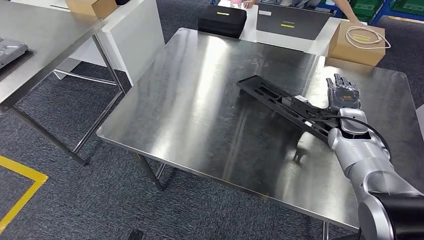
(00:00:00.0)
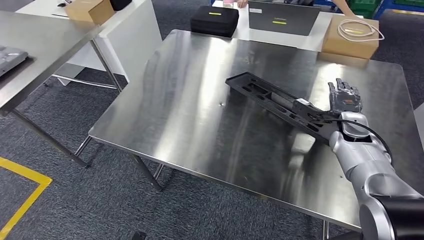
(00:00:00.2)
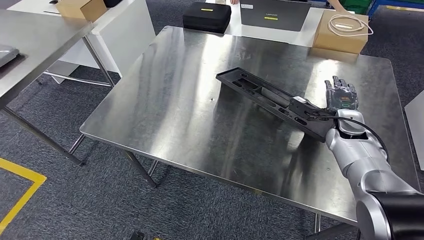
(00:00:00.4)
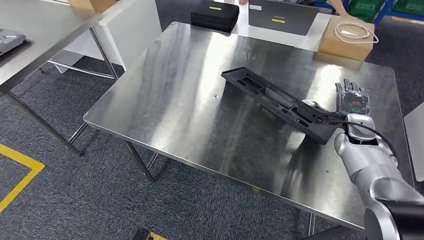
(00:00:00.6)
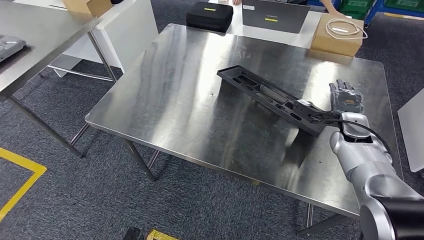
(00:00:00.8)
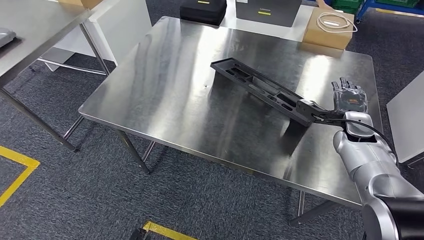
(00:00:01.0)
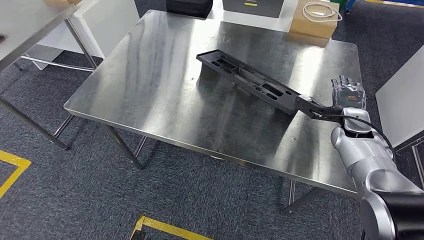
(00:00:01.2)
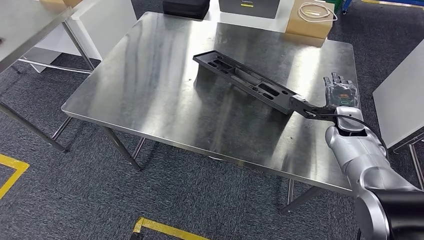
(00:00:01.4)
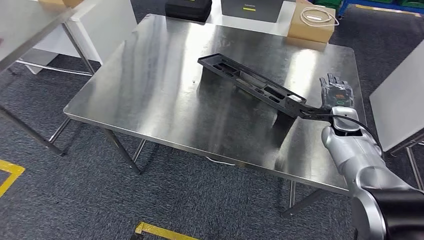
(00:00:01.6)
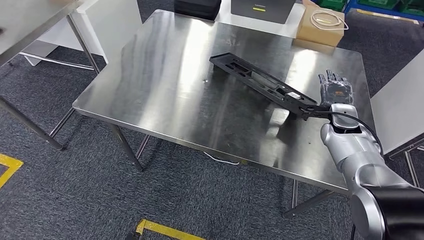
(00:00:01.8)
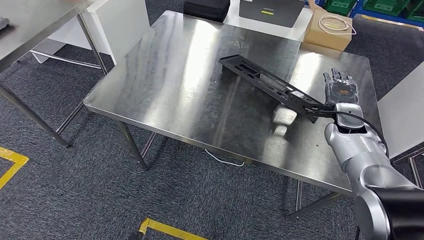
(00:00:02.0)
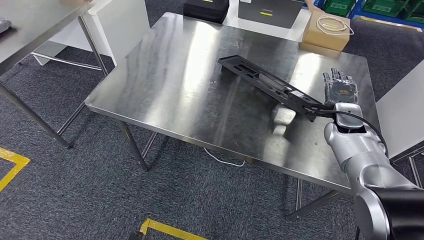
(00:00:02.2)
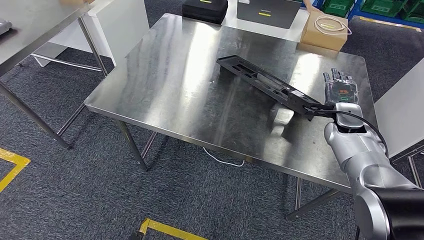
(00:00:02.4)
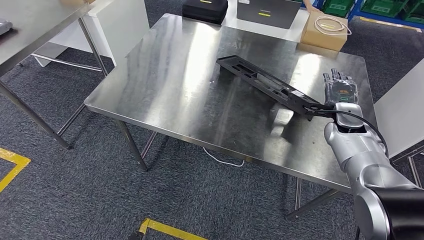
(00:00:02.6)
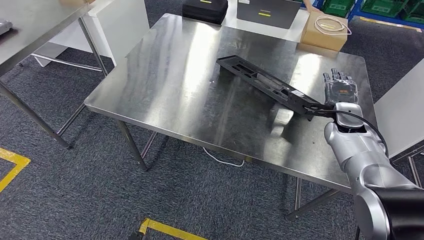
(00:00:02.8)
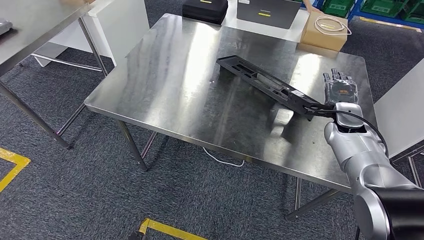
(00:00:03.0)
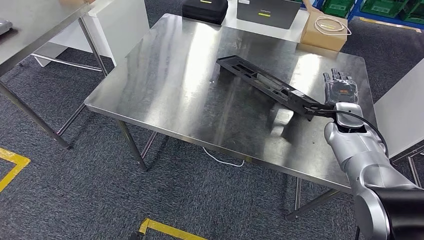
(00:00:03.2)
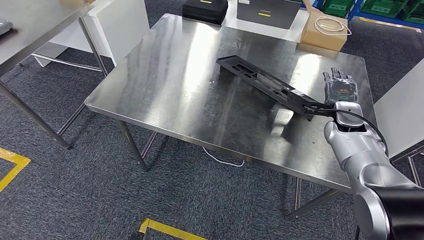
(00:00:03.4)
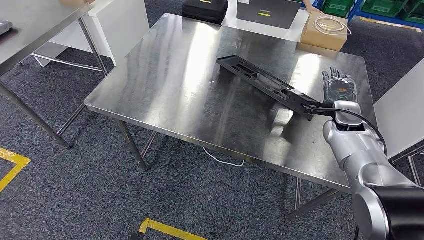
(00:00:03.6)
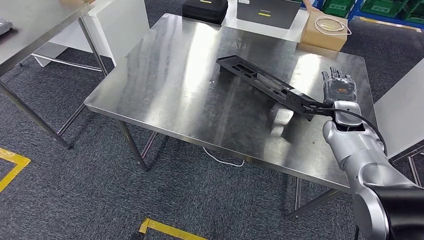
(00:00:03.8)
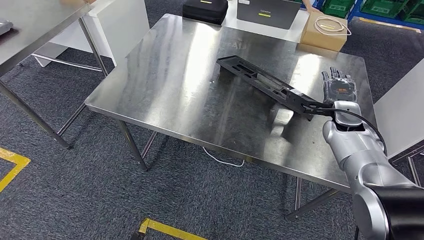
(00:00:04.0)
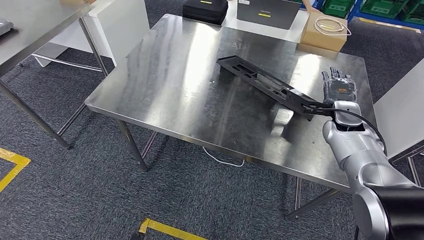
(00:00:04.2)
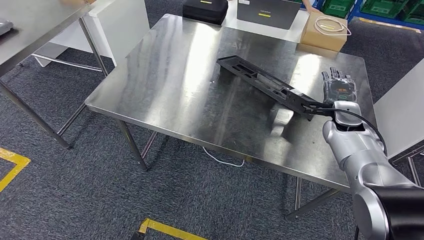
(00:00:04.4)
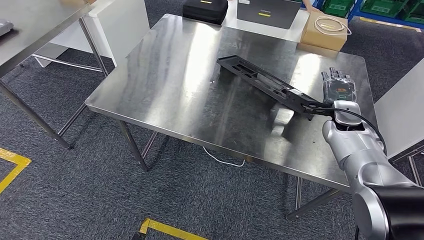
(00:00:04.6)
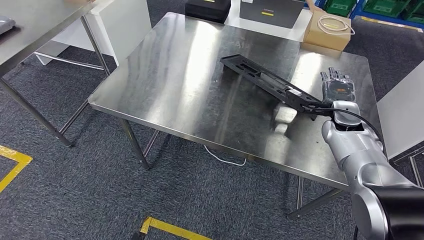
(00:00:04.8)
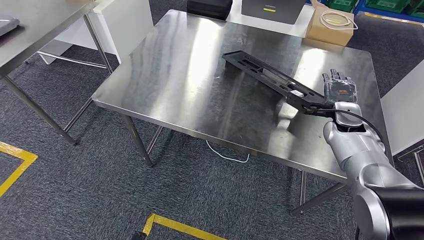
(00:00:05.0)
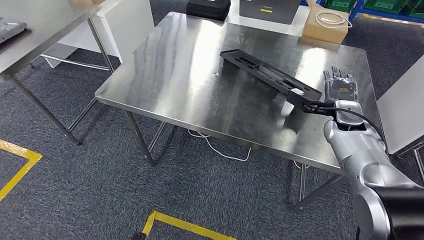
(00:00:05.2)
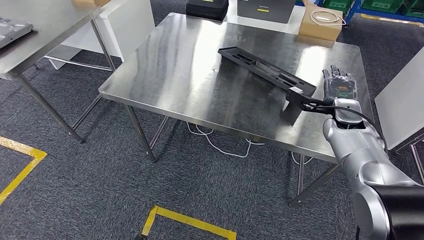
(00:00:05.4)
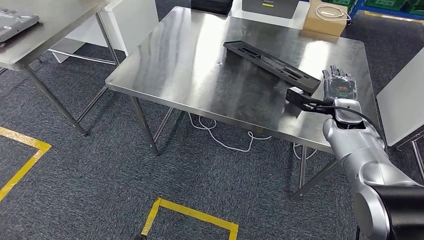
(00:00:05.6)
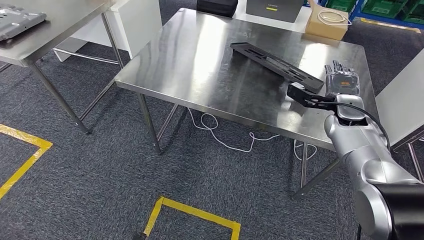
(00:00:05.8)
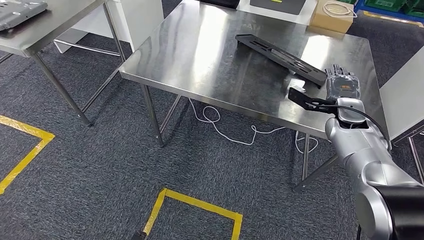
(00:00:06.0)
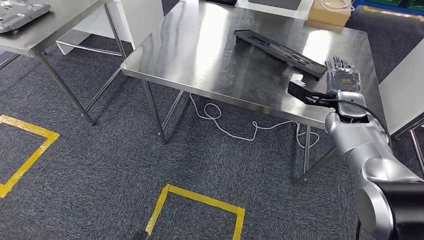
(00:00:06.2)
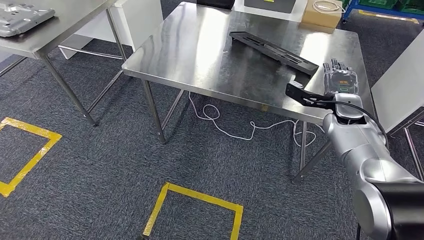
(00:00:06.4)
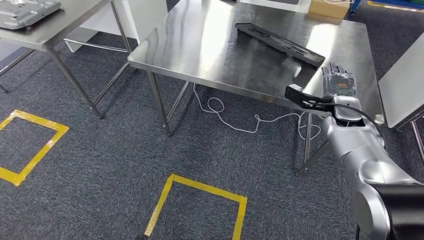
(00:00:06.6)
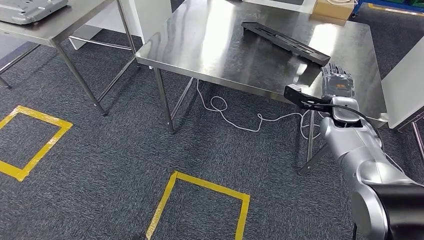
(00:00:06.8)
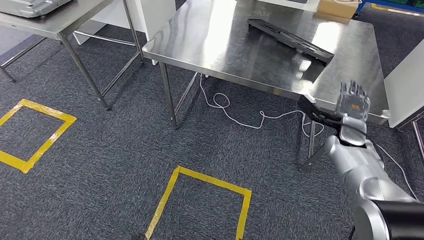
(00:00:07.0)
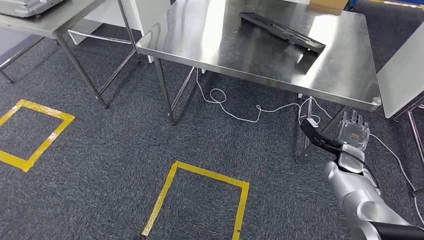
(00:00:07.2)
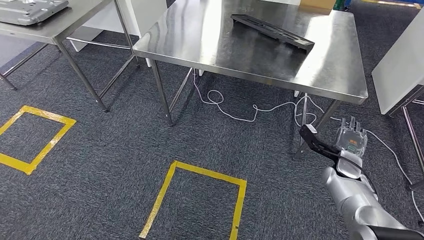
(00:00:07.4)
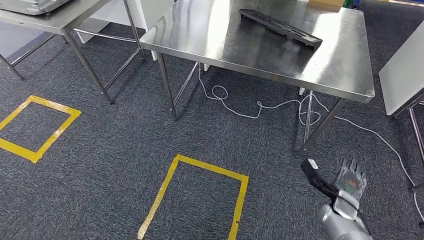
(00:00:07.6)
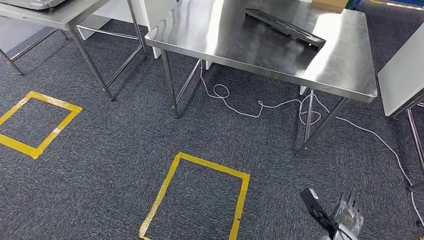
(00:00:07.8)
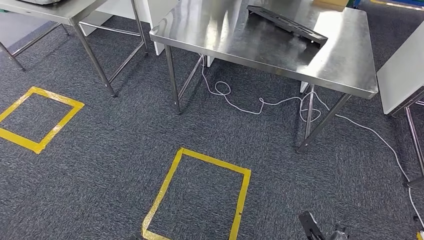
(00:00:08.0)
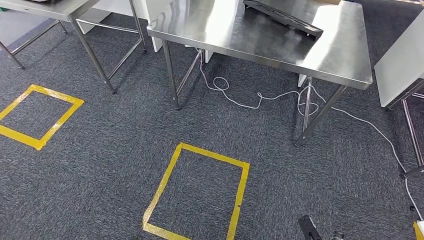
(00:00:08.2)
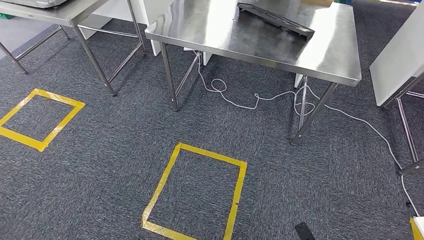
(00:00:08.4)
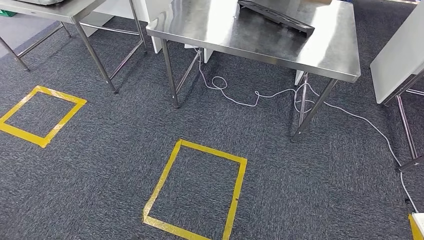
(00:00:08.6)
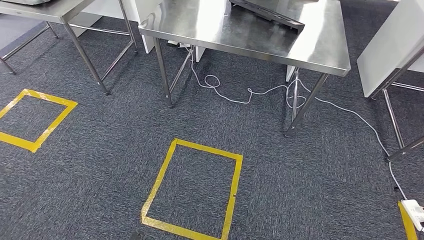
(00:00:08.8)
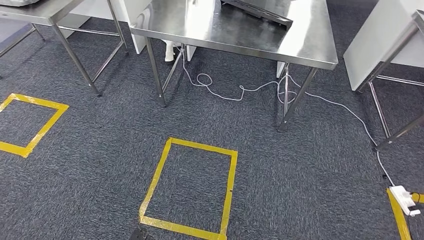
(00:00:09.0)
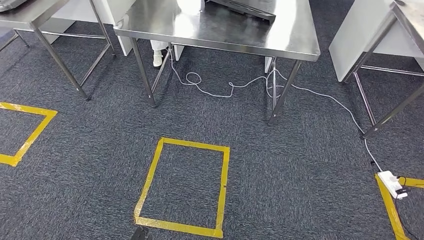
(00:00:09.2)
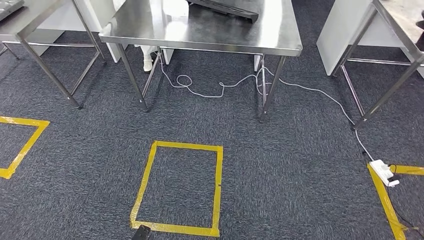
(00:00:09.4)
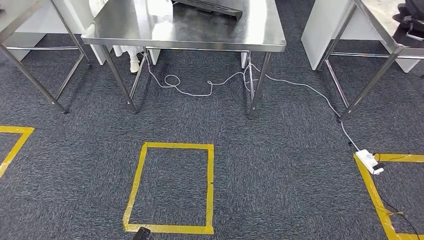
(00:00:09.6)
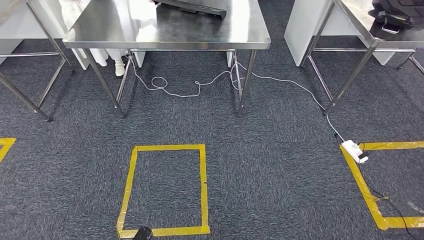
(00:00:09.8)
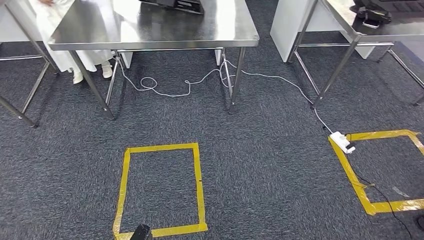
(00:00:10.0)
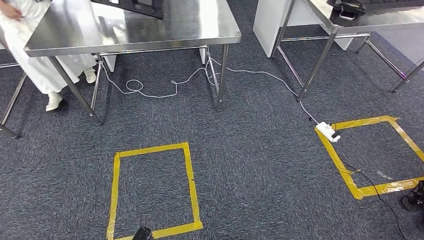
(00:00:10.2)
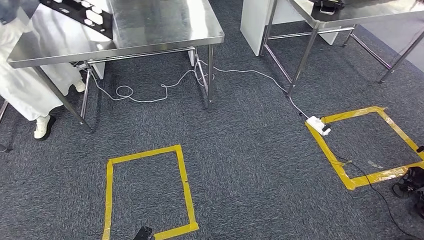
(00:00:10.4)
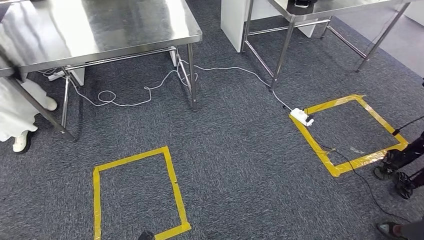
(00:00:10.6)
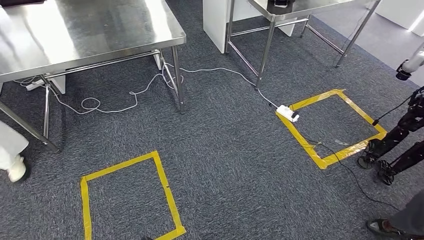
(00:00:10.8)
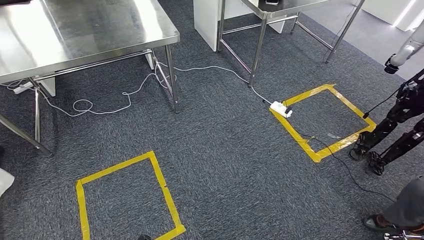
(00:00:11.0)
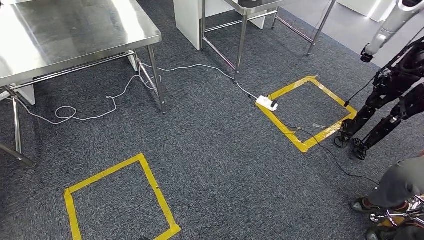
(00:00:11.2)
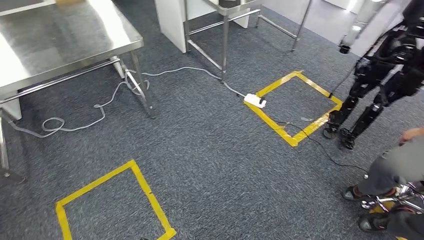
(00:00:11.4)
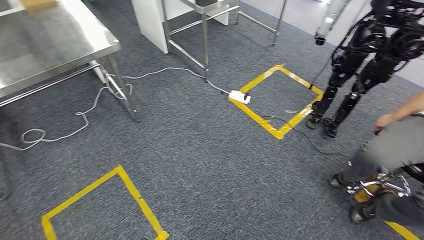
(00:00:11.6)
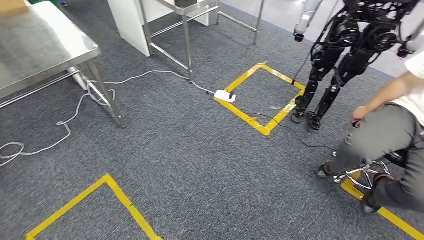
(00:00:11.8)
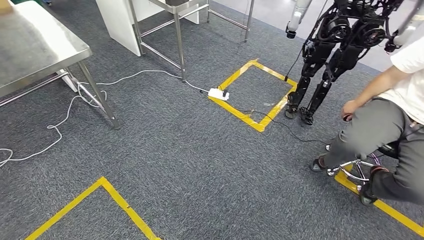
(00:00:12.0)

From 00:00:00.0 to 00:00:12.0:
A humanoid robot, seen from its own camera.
Step, from 00:00:00.0 to 00:00:02.0: Insert the large material into the corresponding slot on the workbench.
From 00:00:03.0 to 00:00:04.4: Neither hand changes place.

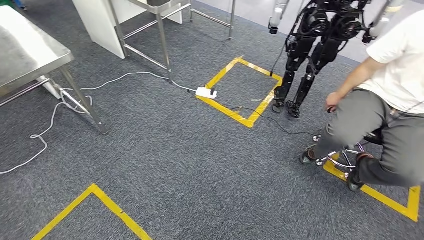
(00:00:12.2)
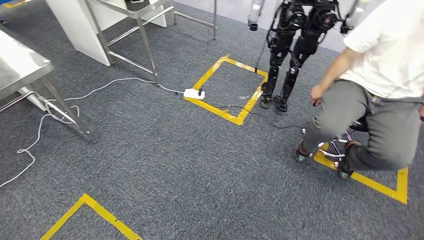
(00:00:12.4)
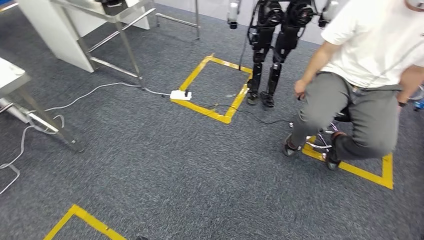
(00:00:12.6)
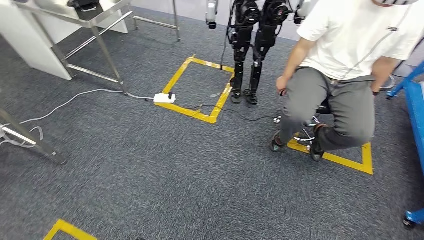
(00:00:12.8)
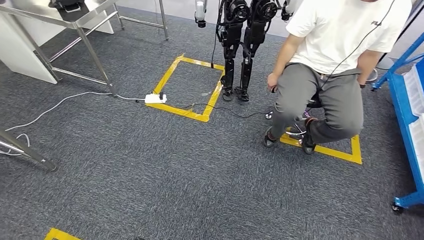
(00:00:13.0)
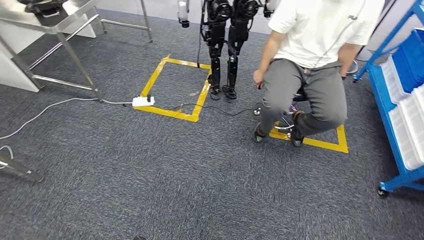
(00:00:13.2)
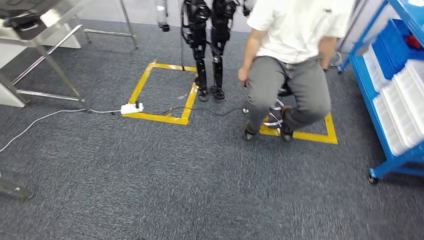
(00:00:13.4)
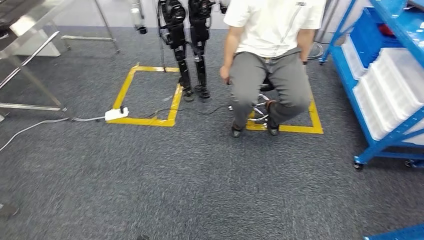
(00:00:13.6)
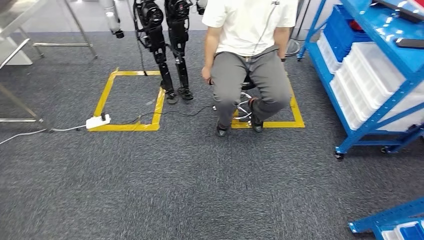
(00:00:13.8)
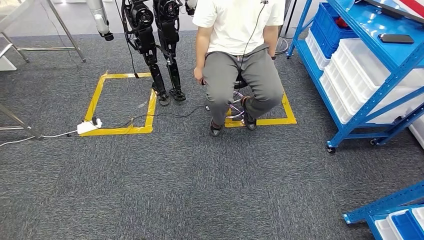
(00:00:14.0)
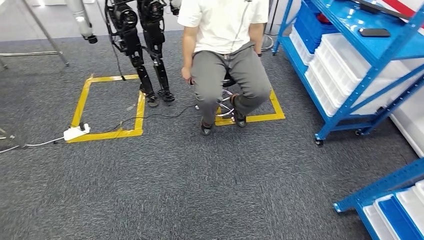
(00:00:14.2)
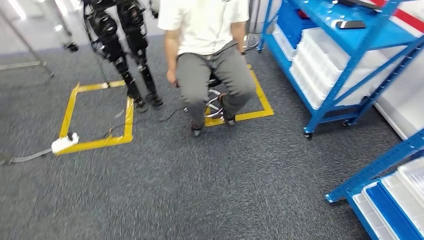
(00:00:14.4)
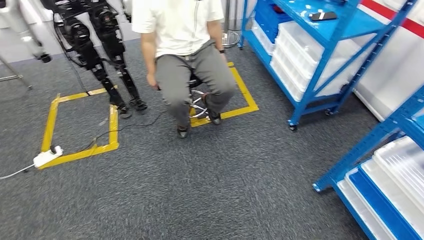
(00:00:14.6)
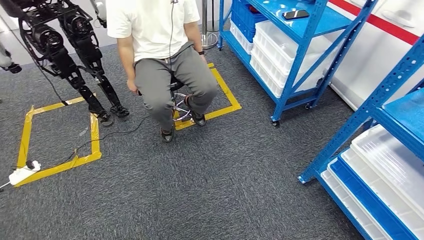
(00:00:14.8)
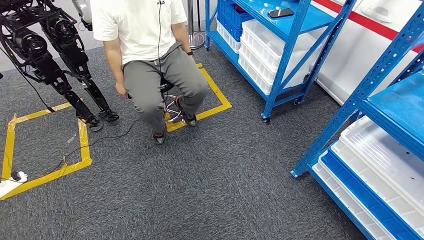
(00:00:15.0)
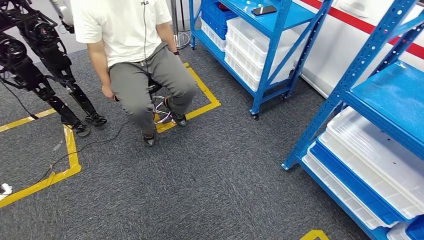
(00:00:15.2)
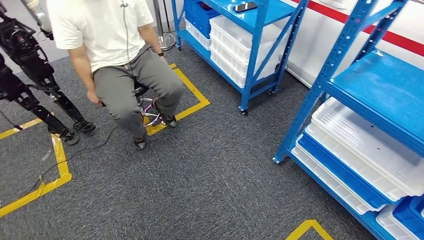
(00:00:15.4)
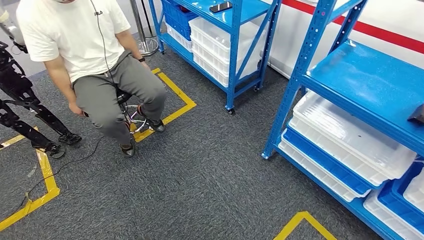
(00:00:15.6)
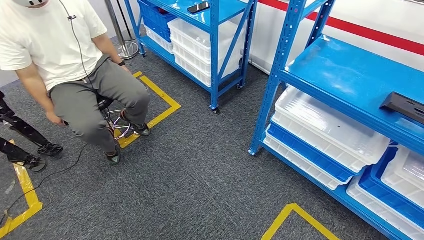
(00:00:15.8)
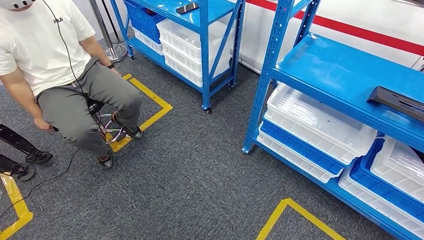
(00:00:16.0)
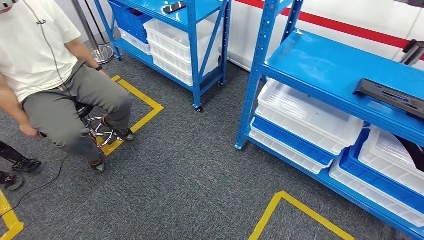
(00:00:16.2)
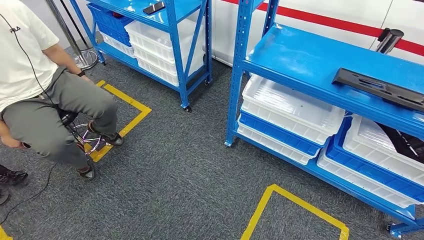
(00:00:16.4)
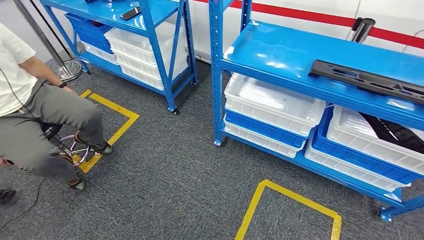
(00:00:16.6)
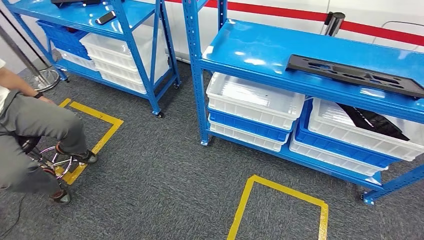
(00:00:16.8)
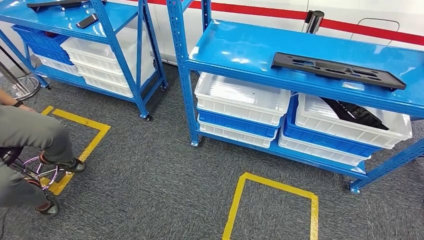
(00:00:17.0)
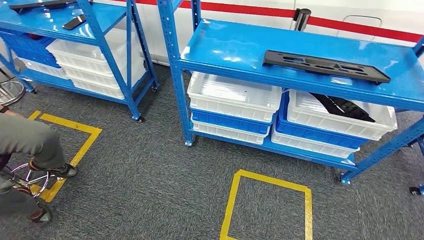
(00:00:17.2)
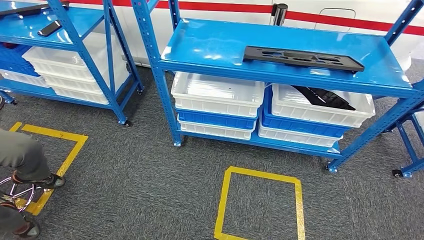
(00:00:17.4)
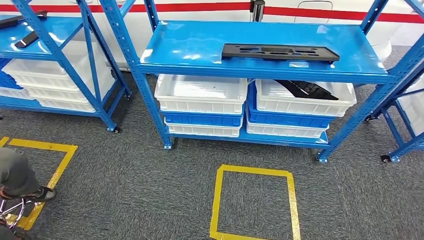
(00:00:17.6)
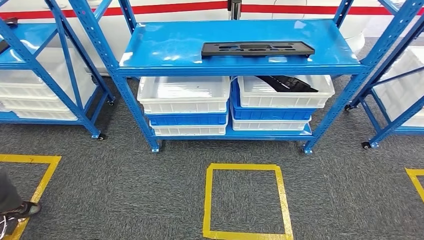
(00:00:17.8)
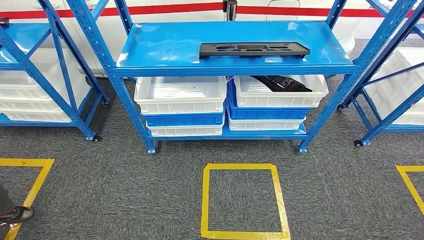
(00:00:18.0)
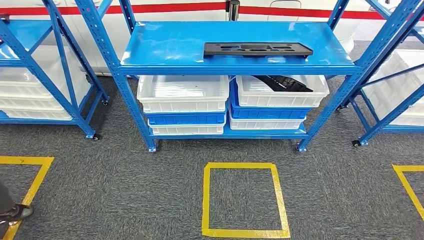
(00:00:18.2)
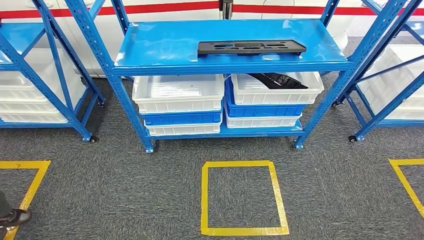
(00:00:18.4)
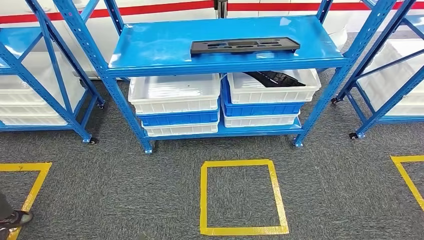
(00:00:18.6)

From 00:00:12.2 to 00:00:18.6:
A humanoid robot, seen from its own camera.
Step, from 00:00:12.2 to 00:00:18.4: Return to the initial position at the shelf.
